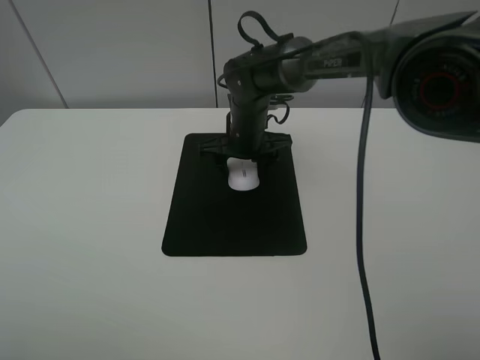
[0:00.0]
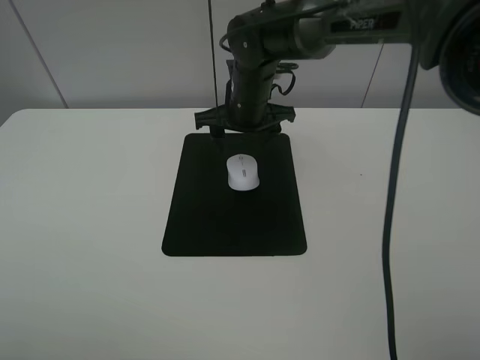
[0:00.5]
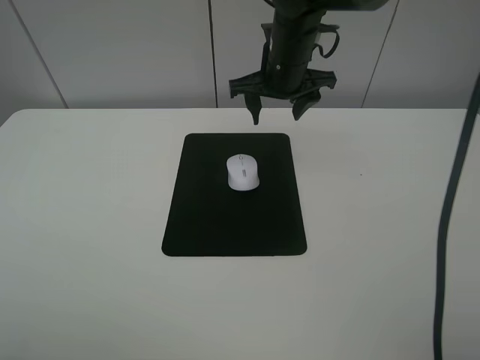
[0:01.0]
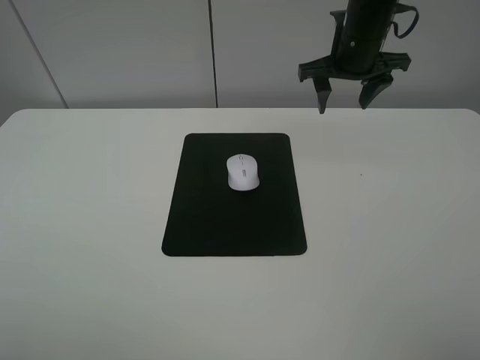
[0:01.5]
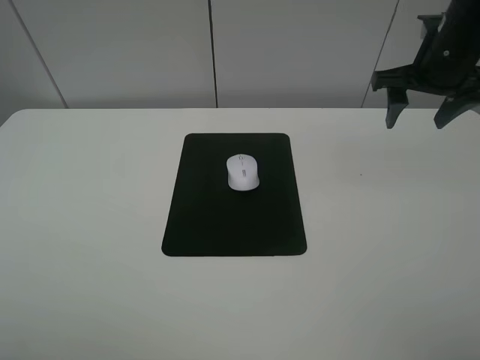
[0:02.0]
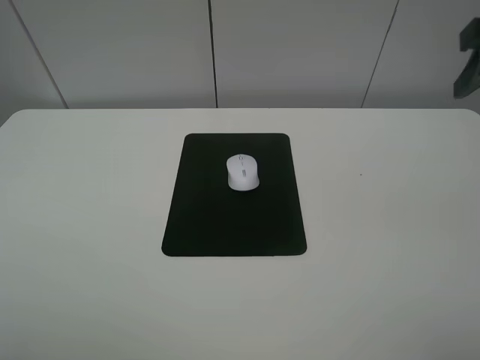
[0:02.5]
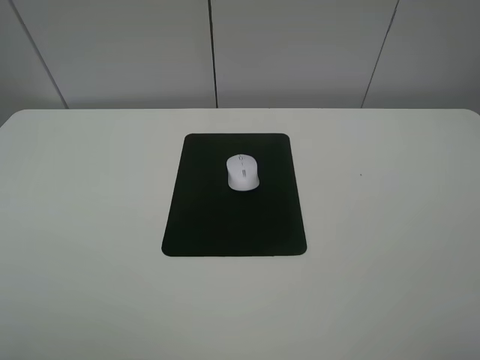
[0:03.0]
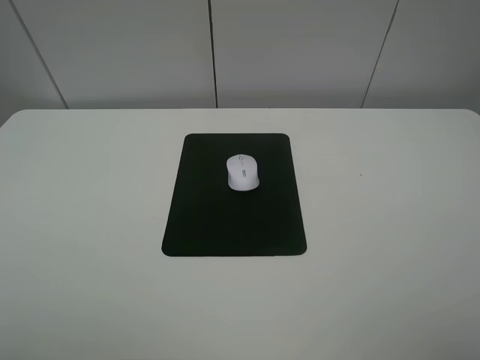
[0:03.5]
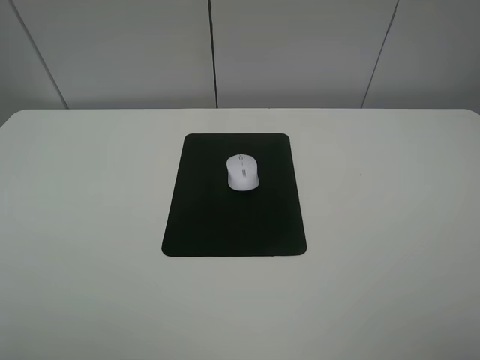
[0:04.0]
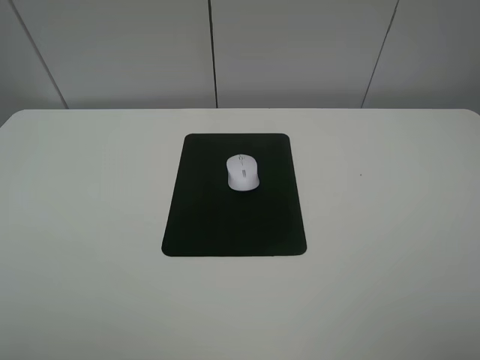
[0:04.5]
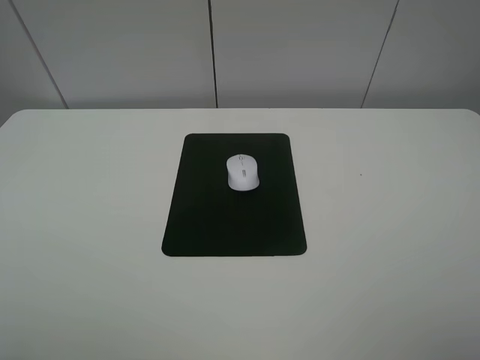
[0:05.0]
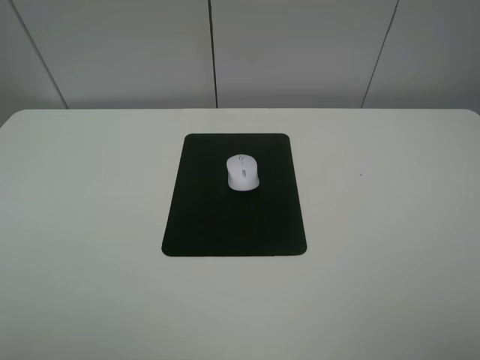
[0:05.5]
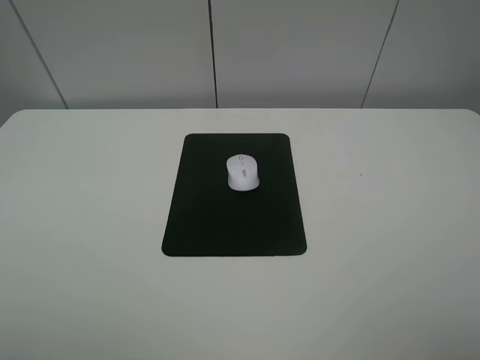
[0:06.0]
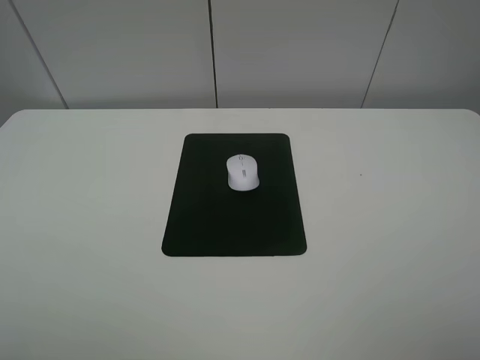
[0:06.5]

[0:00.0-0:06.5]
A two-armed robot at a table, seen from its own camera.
0:00.0 to 0:02.0: The right gripper is displaced to the right and upward by approximately 30 cm.
0:02.0 to 0:04.5: The right gripper moves backward, some 35 cm.

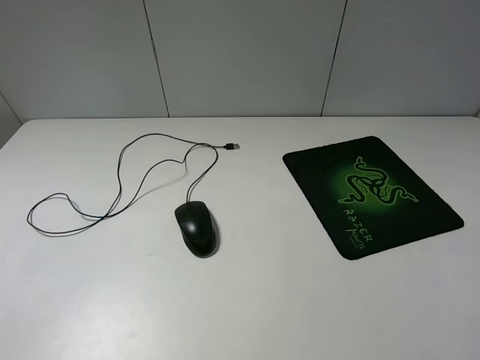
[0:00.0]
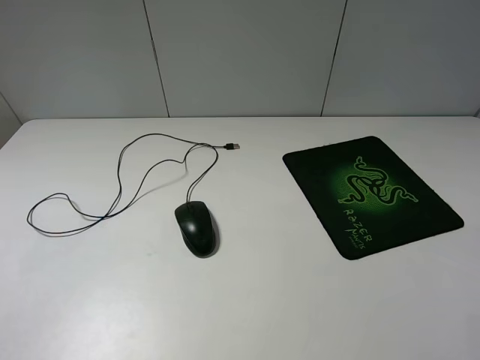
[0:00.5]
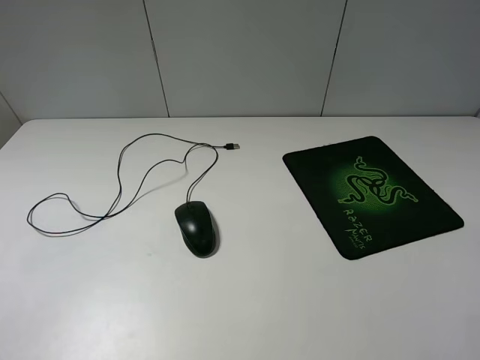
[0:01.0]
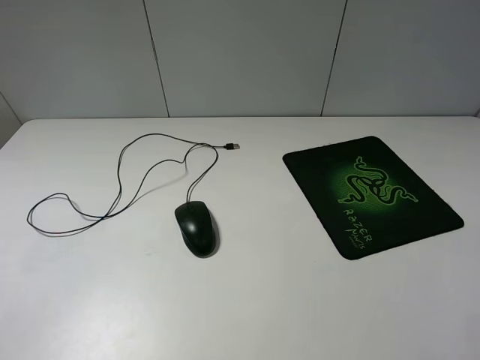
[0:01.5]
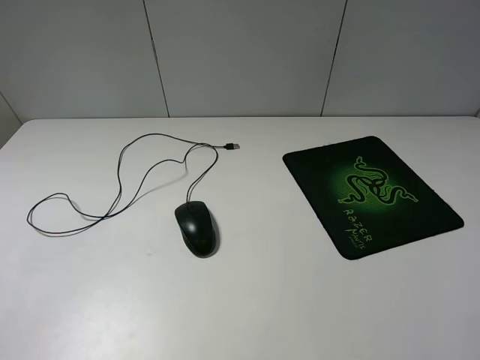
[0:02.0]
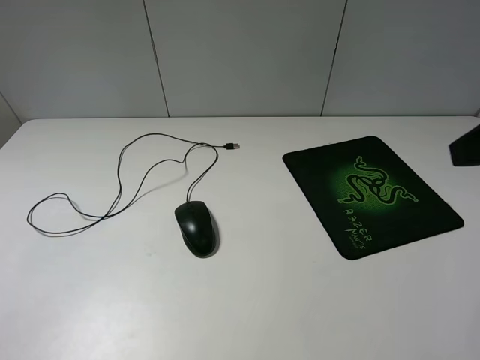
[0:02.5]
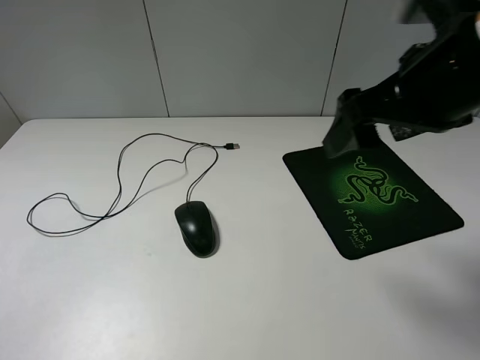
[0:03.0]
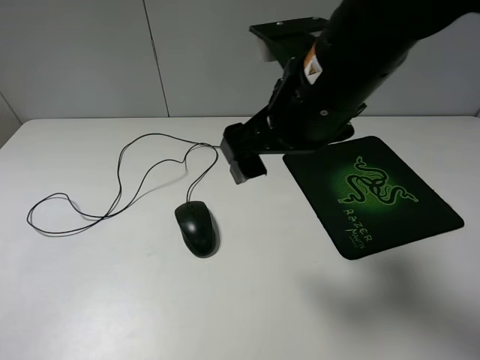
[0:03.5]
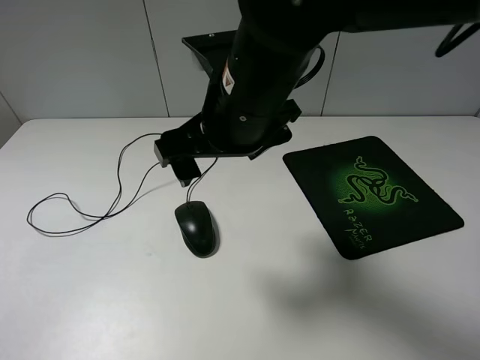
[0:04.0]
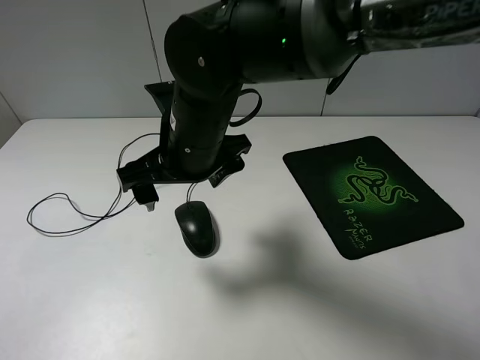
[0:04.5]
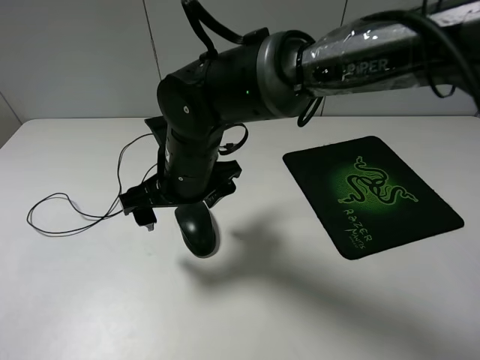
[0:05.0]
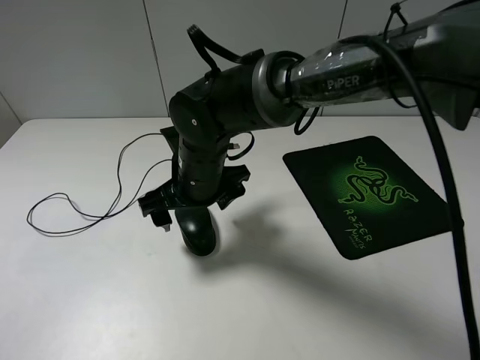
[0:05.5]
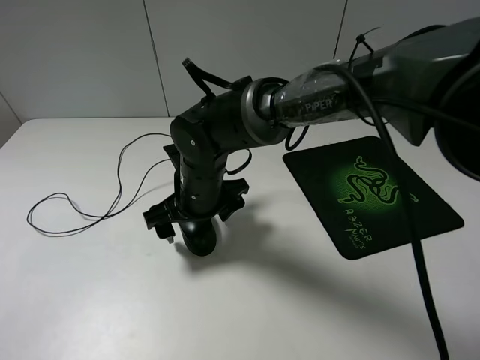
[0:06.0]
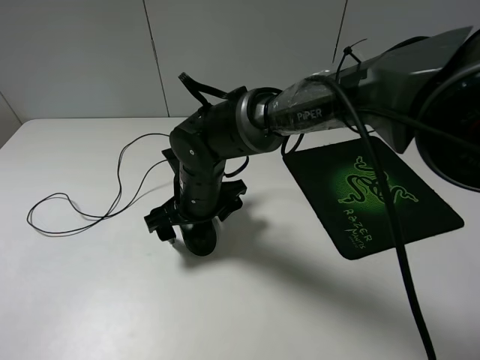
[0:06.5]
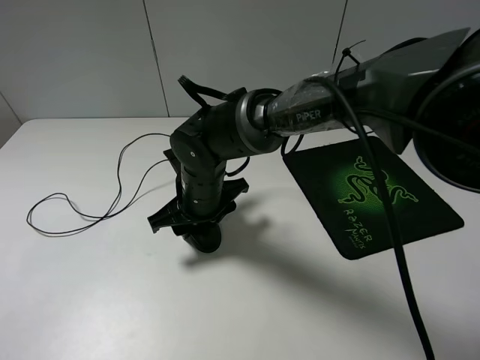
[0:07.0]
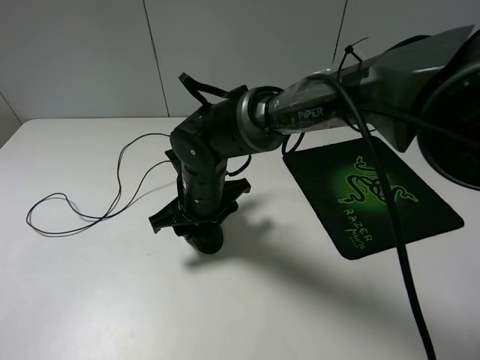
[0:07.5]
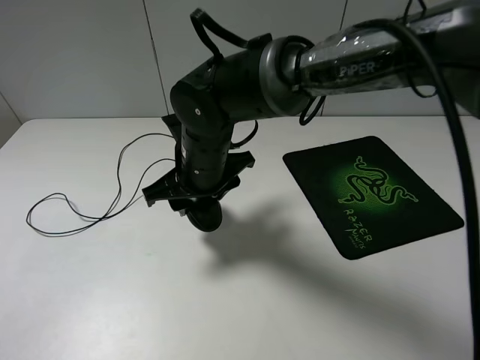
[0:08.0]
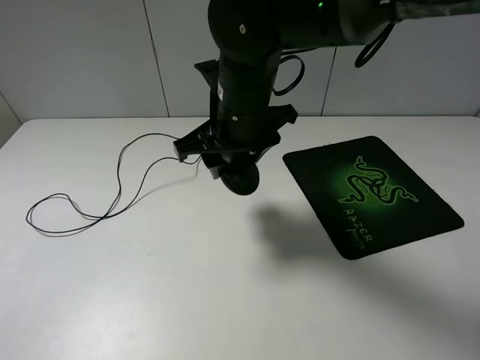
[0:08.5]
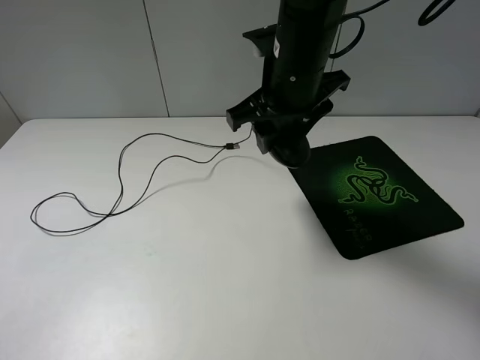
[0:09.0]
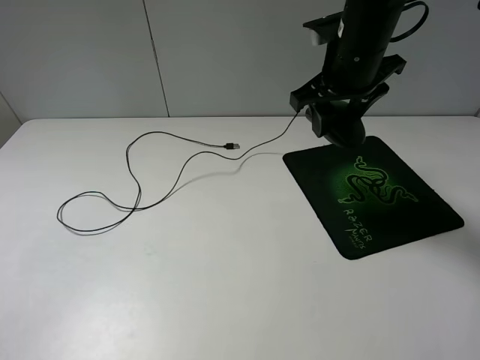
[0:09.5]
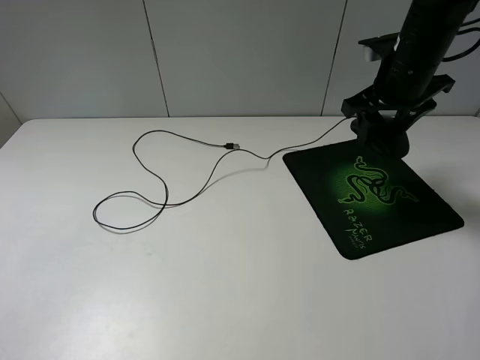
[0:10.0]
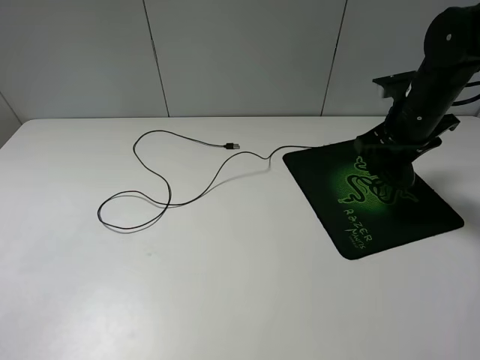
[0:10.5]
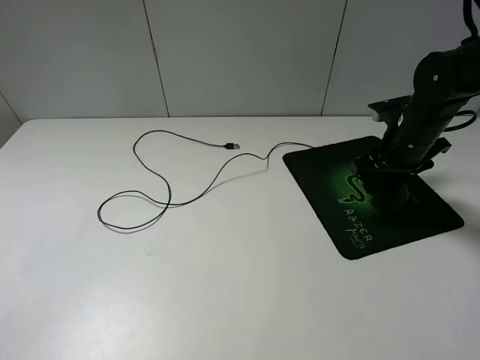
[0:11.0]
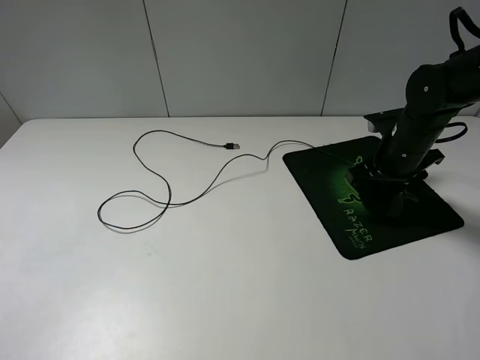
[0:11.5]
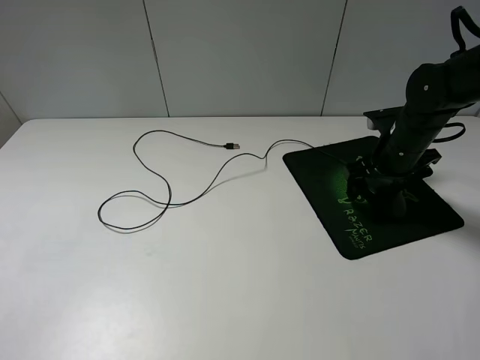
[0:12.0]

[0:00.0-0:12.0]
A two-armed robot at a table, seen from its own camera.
Step, 0:00.0 to 0:07.0: Grasp the mouse with the right gripper.
0:02.0 to 0:04.0: The right gripper goes roughly 35 cm to the left and forward.
0:04.0 to 0:06.0: The right gripper travels downward by roughly 15 cm.
0:06.0 to 0:08.0: The right gripper moves upward, some 5 cm, and closes its fingers.
0:08.0 to 0:10.0: The right gripper travels to the right by some 25 cm.
0:10.0 to 0:12.0: The right gripper shifts about 10 cm downward, and opens up.

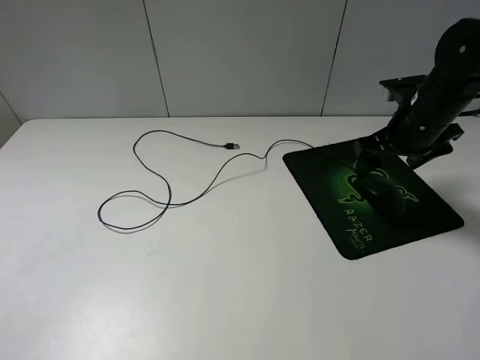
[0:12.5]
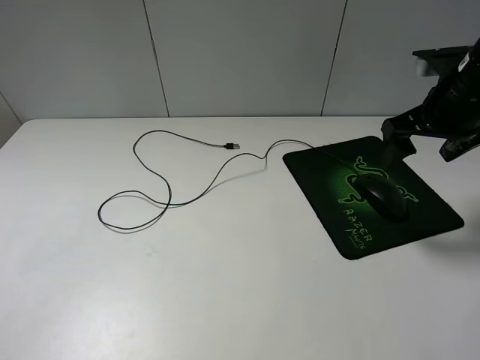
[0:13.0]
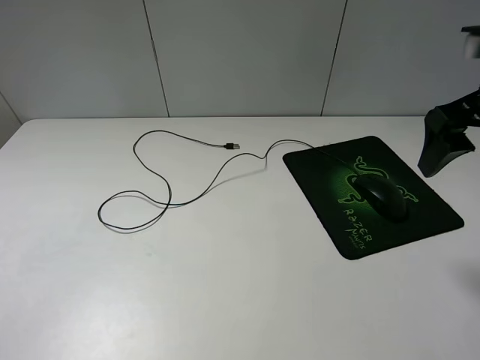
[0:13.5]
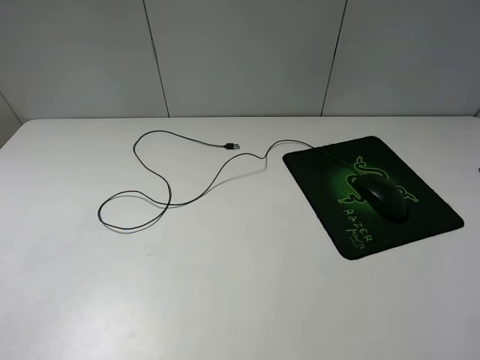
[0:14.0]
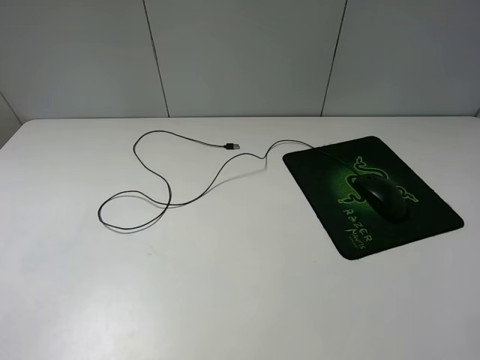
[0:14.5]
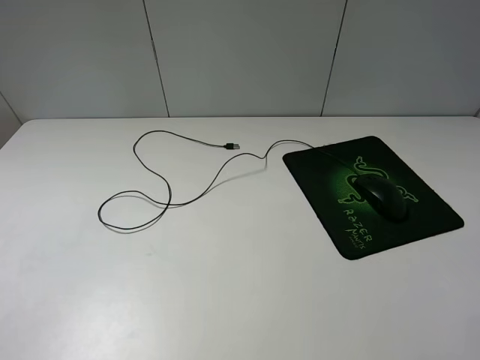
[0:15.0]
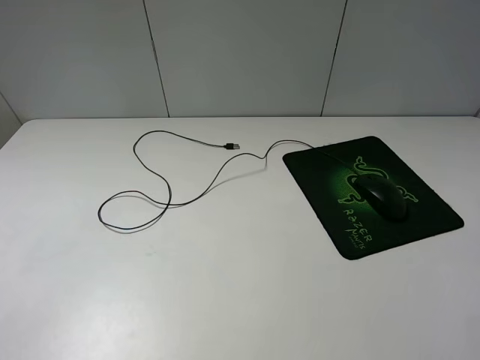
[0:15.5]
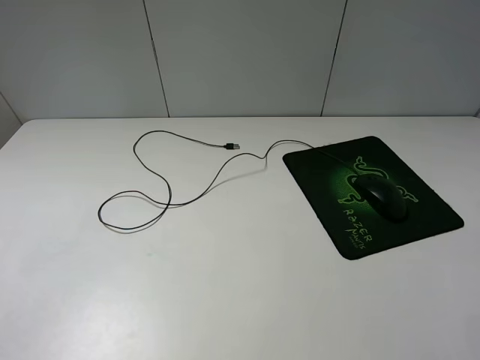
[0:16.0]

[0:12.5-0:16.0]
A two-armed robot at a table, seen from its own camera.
0:12.5 to 0:14.5: The right gripper heads backward and upward, covering roughly 35 cm.

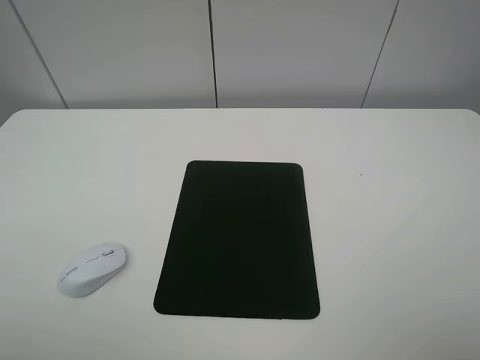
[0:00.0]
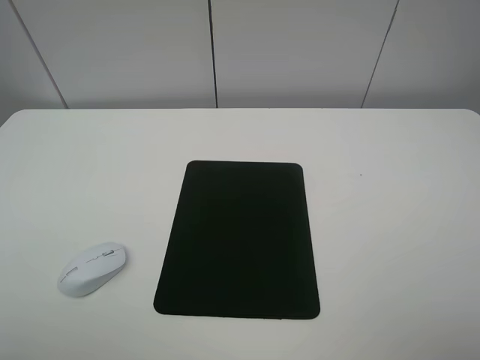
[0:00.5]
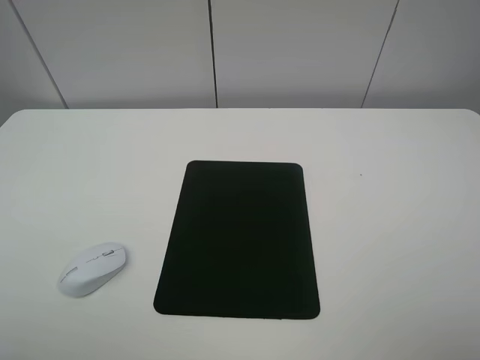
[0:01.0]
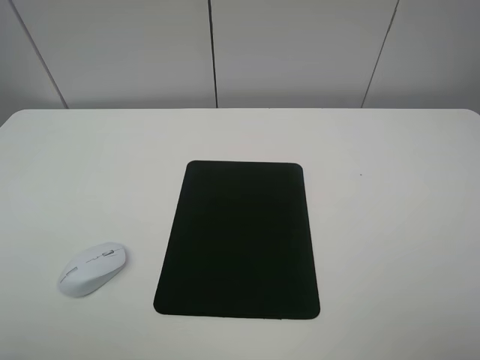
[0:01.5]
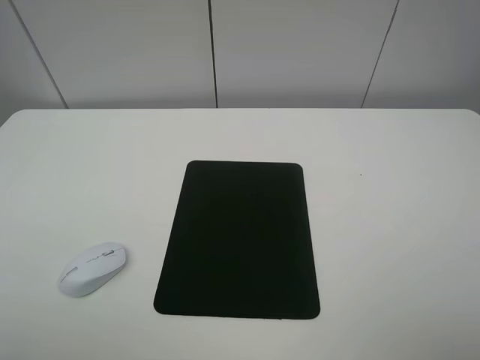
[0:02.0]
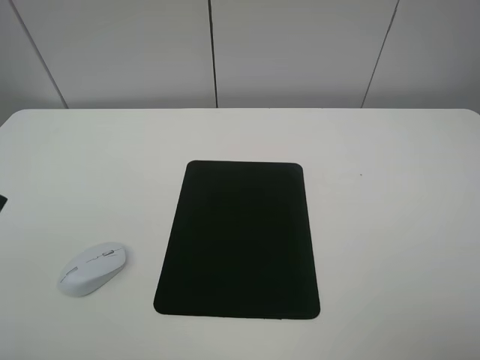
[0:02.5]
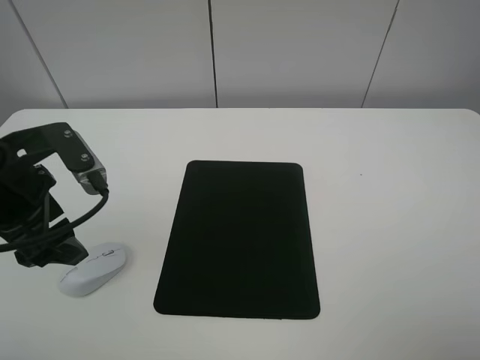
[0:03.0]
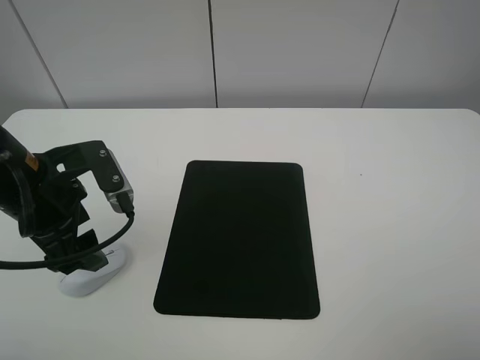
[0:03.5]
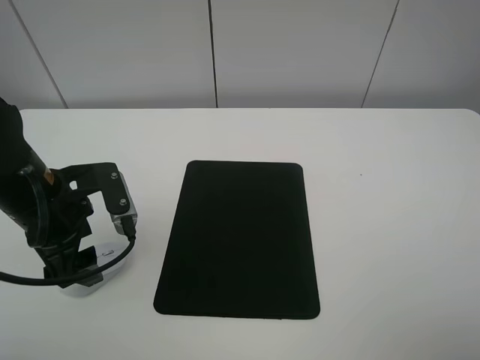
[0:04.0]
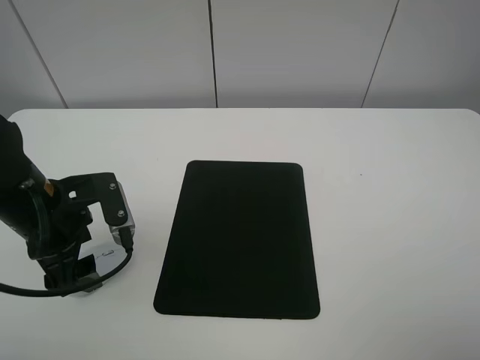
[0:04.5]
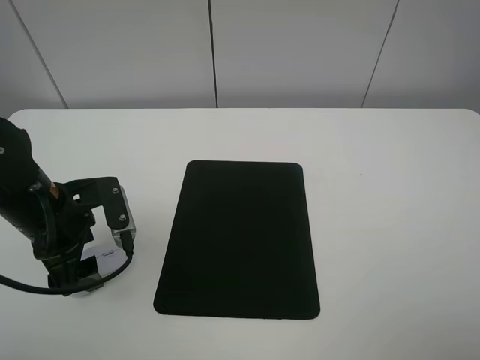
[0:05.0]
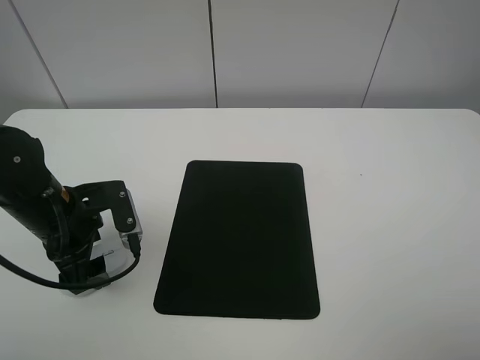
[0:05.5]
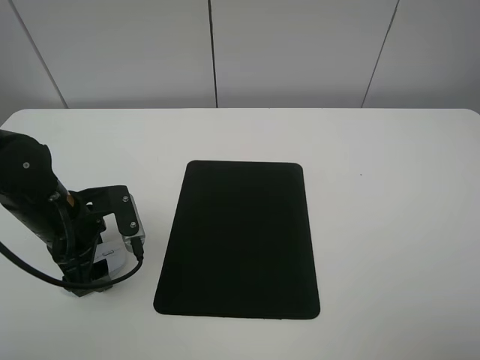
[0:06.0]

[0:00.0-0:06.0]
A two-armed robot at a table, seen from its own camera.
0:02.0 to 0:04.0: The left gripper heads forward, downward and to the right, covering roughly 25 cm.
0:04.0 to 0:06.0: The left gripper is displaced downward by about 5 cm.
